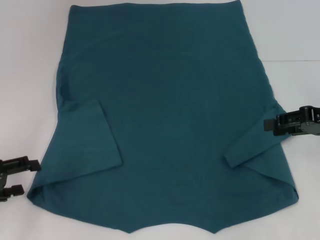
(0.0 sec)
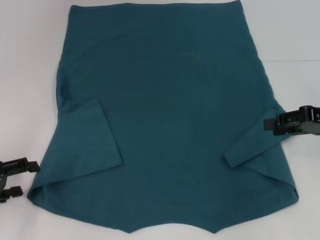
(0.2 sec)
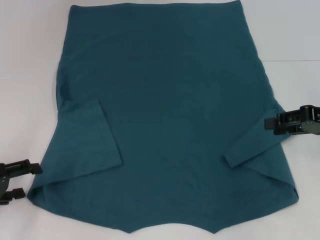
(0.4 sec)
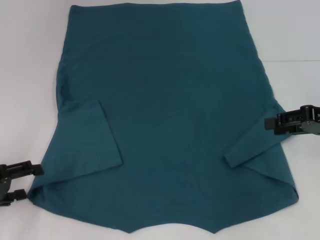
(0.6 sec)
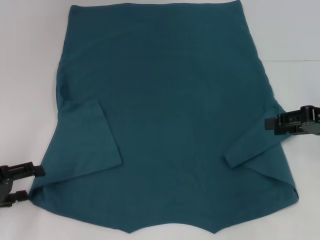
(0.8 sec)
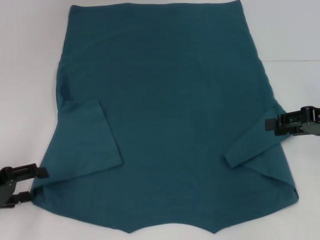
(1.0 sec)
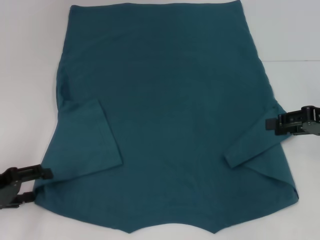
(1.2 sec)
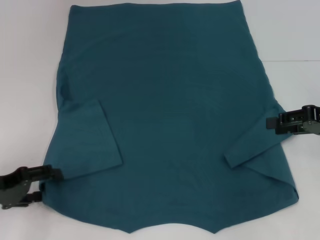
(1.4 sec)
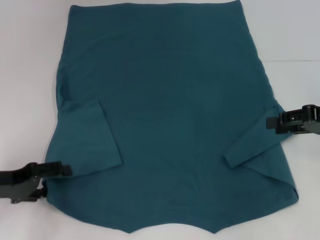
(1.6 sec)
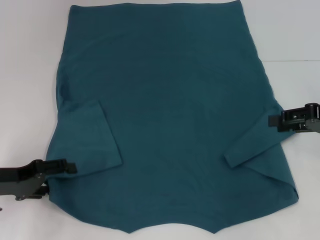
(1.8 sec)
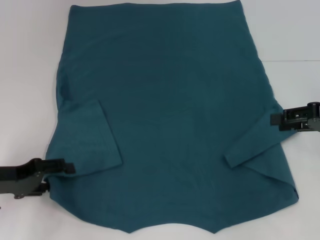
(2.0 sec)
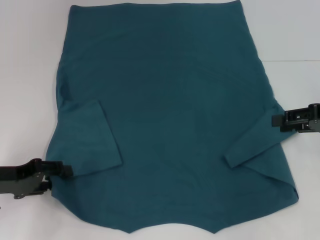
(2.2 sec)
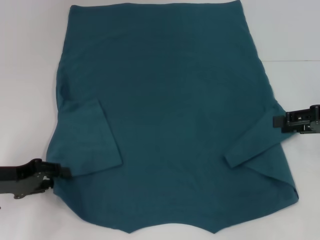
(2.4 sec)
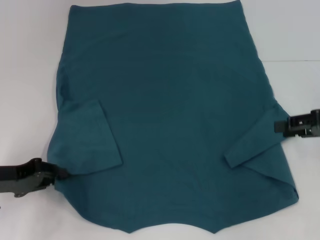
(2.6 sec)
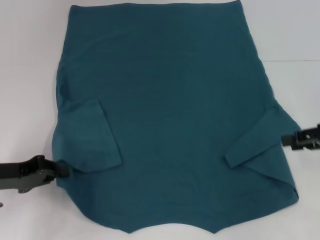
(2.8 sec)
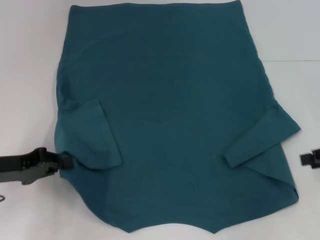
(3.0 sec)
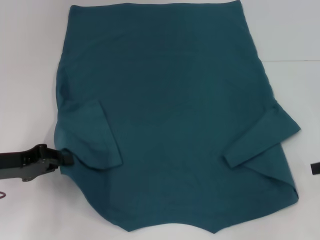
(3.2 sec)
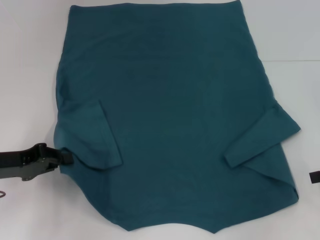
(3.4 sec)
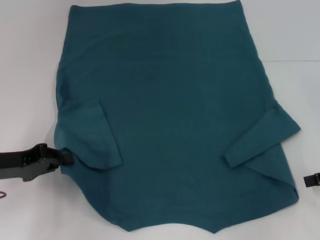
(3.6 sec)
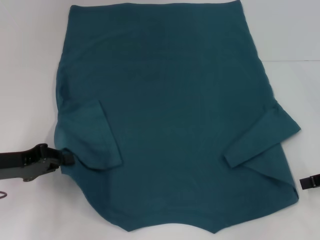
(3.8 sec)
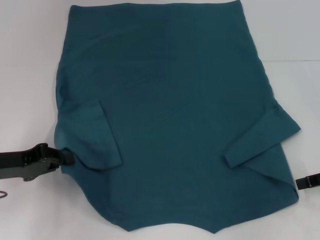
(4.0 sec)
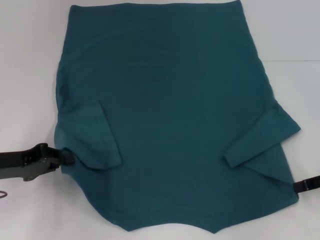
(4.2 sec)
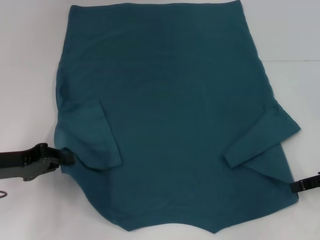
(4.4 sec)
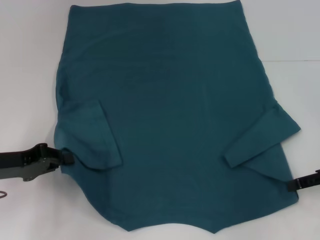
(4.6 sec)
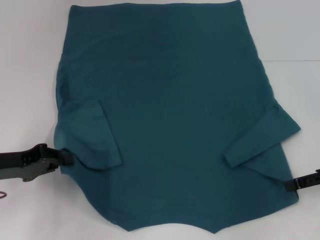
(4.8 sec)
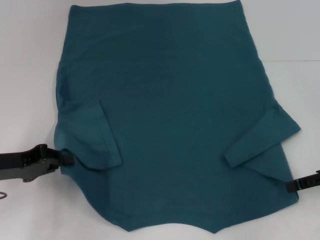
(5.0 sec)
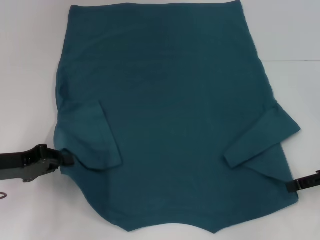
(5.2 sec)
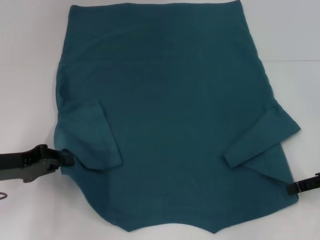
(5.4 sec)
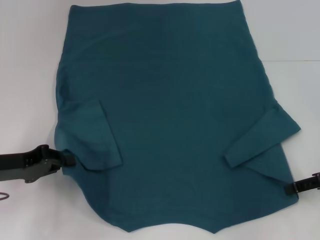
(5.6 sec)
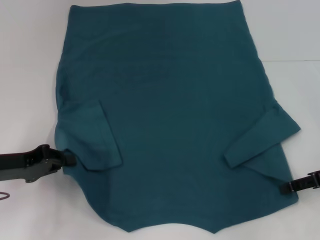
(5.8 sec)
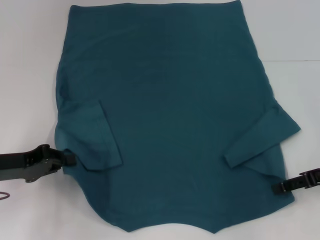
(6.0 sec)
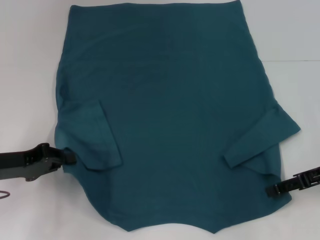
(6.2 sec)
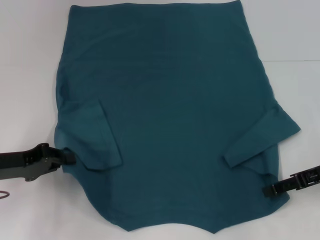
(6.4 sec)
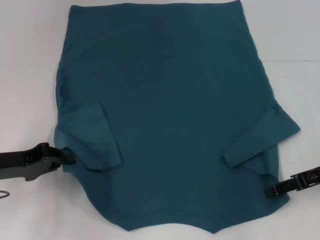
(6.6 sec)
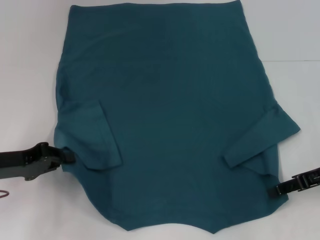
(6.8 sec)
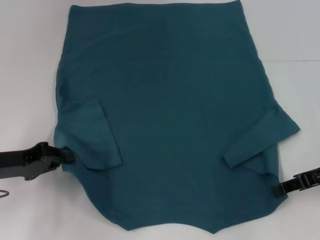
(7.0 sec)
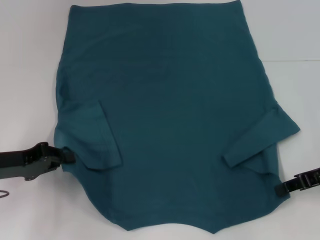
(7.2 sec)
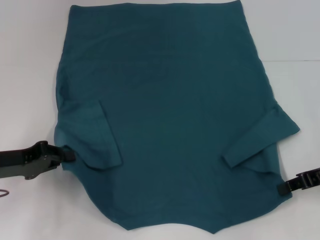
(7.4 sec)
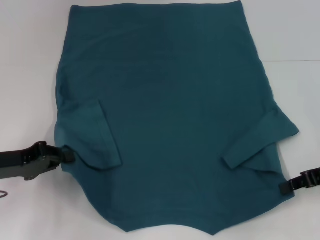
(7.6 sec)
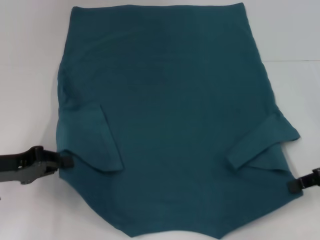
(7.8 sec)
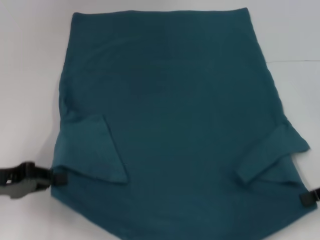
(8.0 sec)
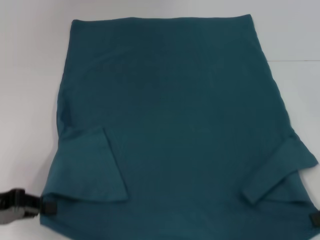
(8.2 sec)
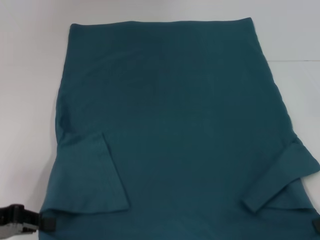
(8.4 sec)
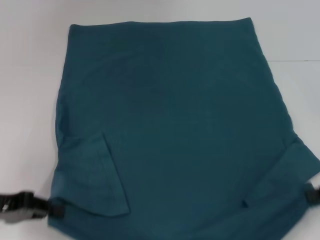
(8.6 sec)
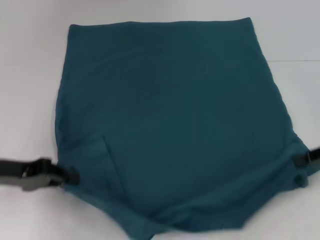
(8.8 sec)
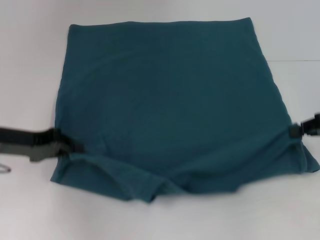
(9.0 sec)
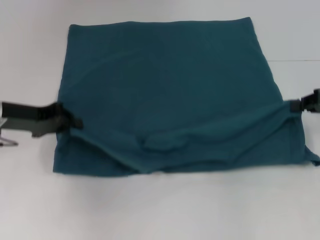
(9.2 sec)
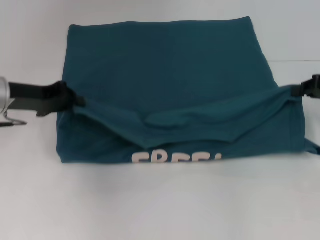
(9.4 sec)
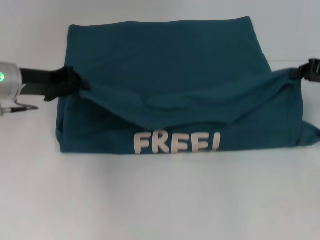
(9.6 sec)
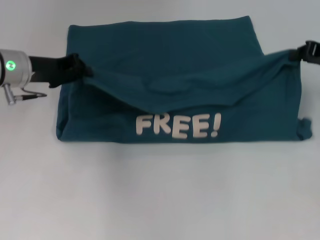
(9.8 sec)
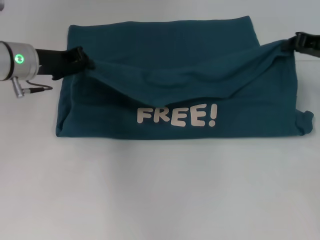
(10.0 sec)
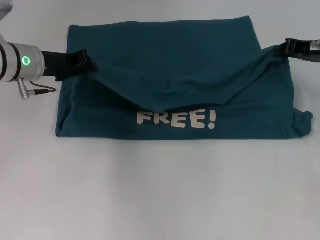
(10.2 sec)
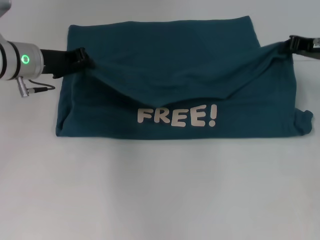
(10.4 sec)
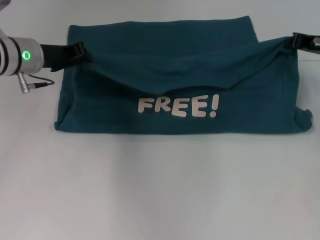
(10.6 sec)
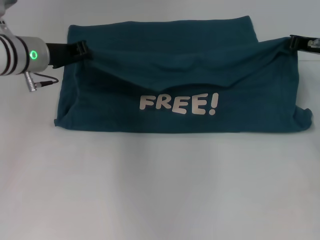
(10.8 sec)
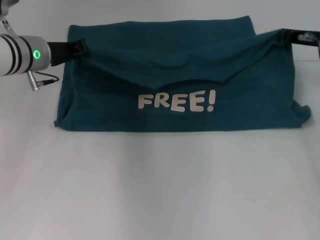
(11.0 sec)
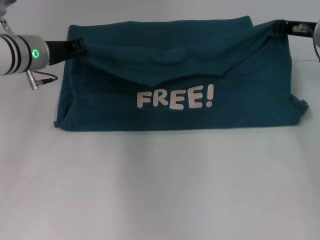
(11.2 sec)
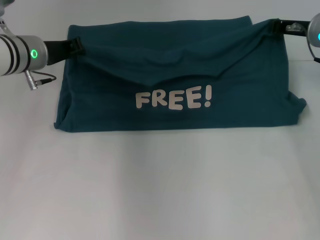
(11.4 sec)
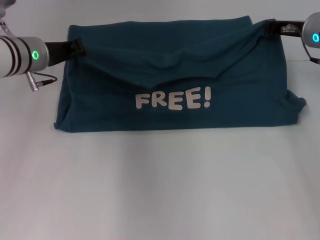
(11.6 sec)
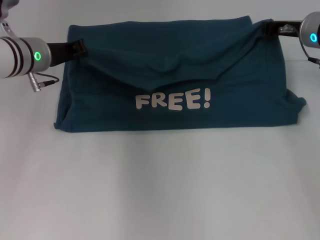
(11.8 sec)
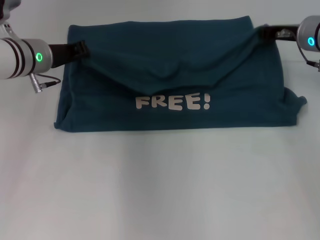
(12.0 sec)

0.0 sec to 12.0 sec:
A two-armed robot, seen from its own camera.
Step, 0.0 sec to 2.8 sec: Grab the bottom left corner with your left hand.
Step, 3.0 sec to 7.4 sec: Grab the bottom right corner with your right hand.
0.0 sec to 1.6 sec: The grippers make only small movements.
1.6 sec to 3.0 sec: The right gripper shifts by roughly 5 cm. Meanwhile the left gripper closes.
3.0 sec to 6.0 sec: The grippers make only small movements.
6.0 sec to 7.6 sec: The right gripper closes up.
7.6 sec to 9.0 sec: The left gripper ends up some 5 cm from where it was. Meanwhile the right gripper moves about 5 cm.
9.0 sec to 10.4 sec: The left gripper goes approximately 10 cm forward and to the right, while the right gripper is displaced forward by some 10 cm.
10.4 sec to 12.0 sec: The right gripper heads to the left, covering some 5 cm.

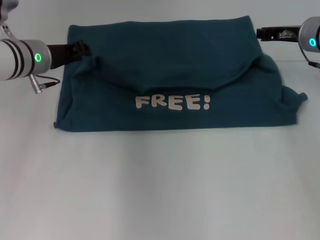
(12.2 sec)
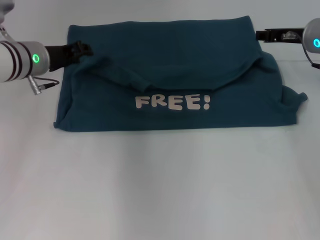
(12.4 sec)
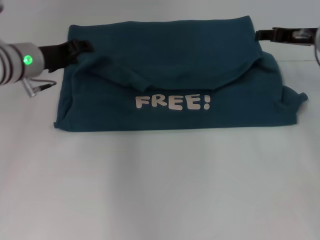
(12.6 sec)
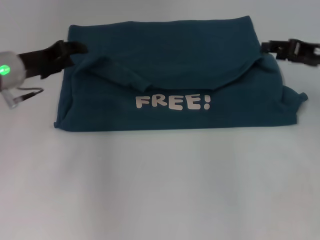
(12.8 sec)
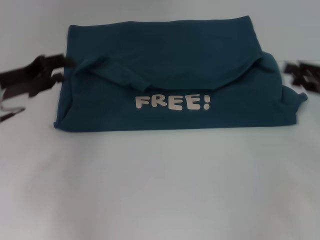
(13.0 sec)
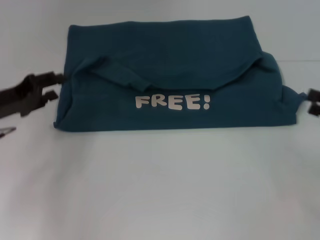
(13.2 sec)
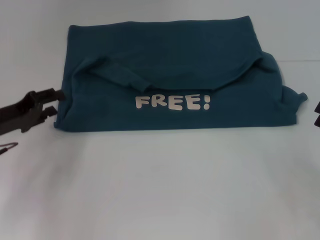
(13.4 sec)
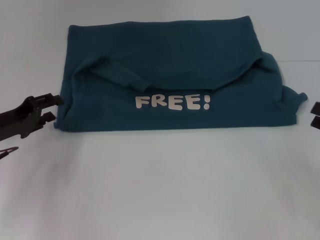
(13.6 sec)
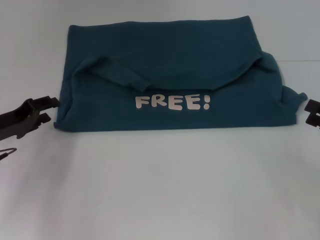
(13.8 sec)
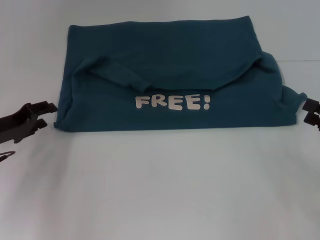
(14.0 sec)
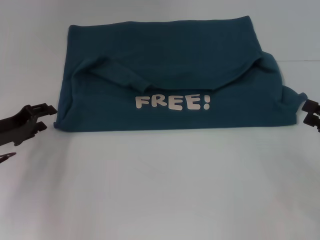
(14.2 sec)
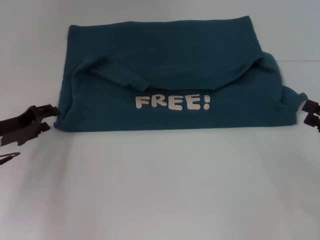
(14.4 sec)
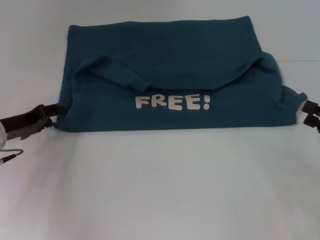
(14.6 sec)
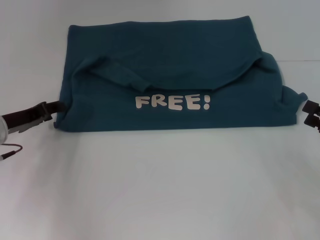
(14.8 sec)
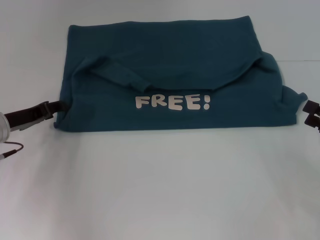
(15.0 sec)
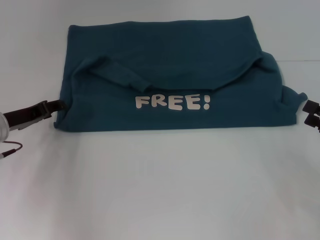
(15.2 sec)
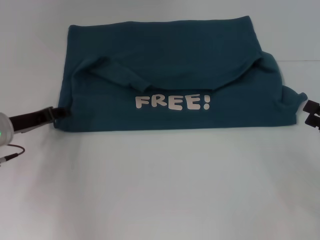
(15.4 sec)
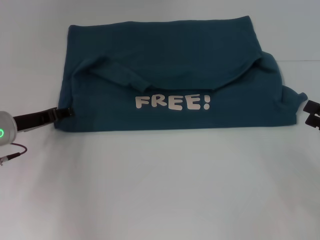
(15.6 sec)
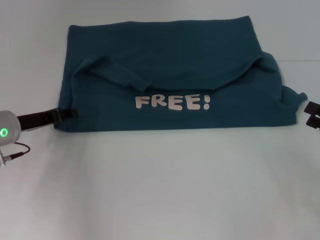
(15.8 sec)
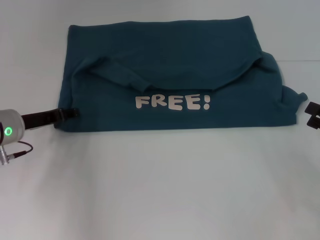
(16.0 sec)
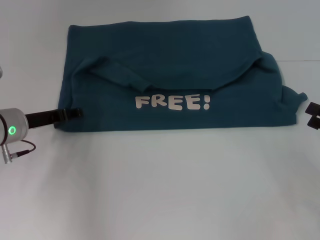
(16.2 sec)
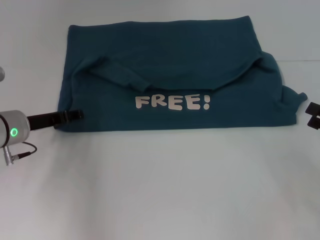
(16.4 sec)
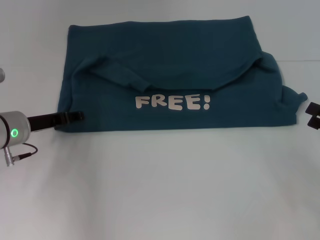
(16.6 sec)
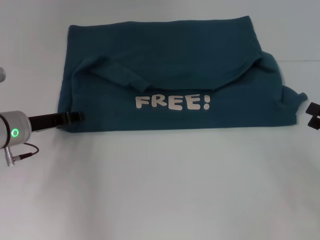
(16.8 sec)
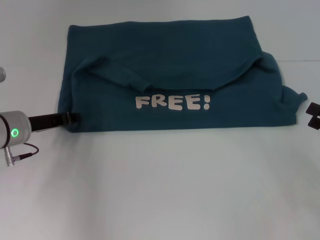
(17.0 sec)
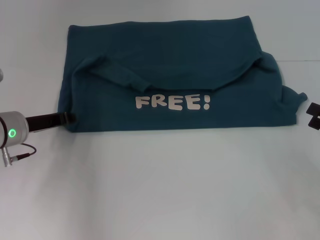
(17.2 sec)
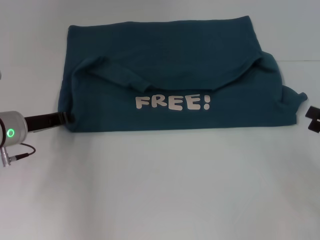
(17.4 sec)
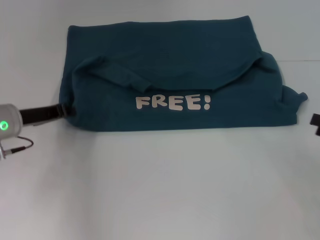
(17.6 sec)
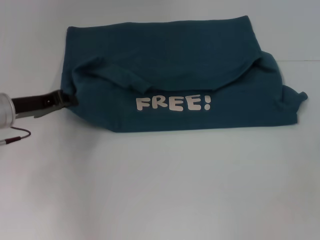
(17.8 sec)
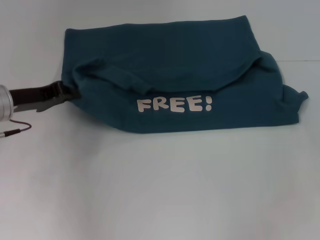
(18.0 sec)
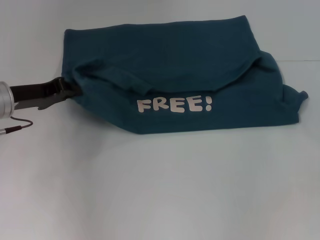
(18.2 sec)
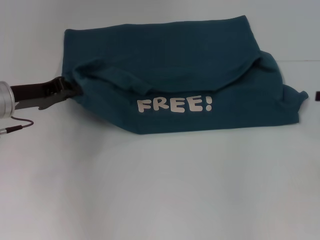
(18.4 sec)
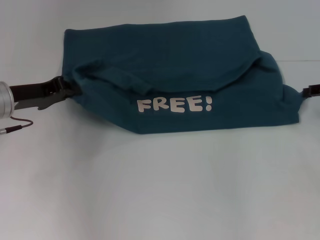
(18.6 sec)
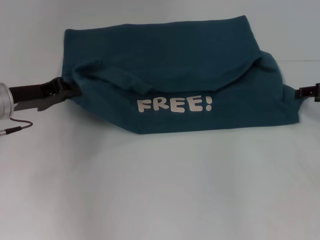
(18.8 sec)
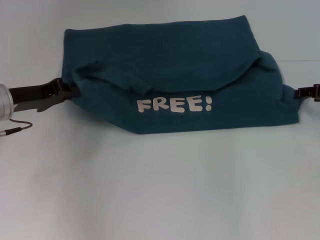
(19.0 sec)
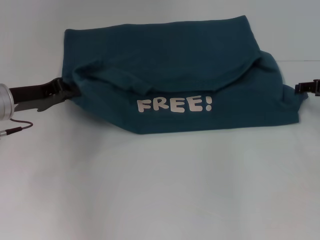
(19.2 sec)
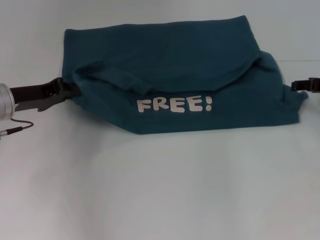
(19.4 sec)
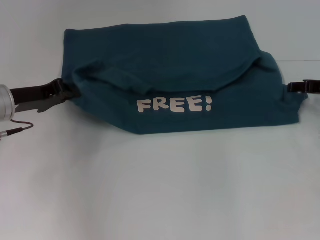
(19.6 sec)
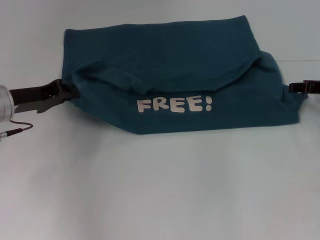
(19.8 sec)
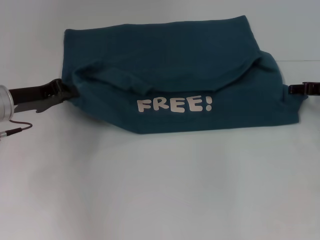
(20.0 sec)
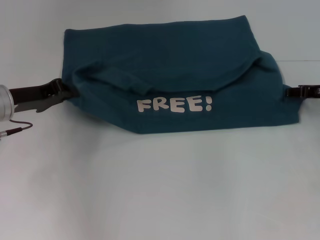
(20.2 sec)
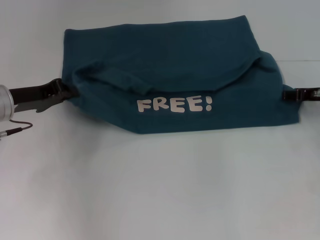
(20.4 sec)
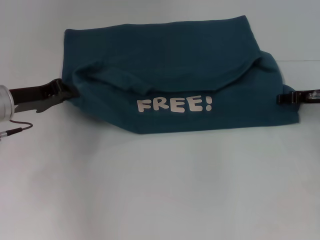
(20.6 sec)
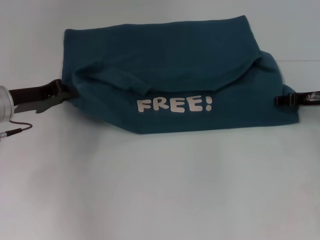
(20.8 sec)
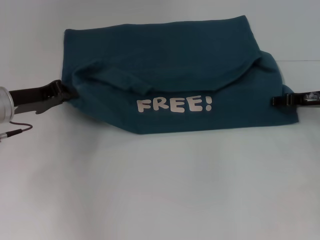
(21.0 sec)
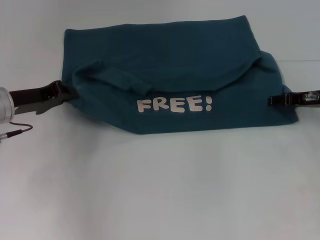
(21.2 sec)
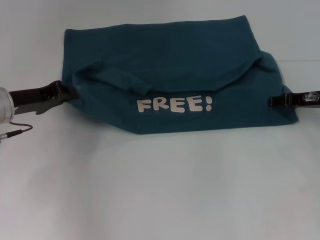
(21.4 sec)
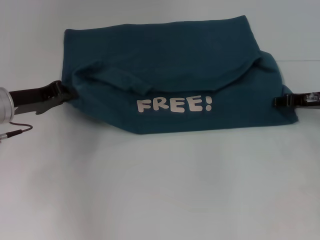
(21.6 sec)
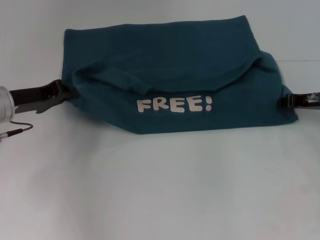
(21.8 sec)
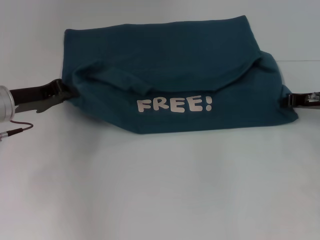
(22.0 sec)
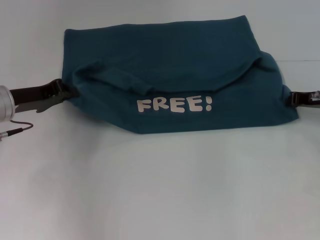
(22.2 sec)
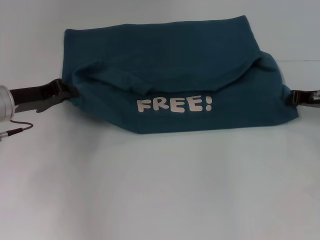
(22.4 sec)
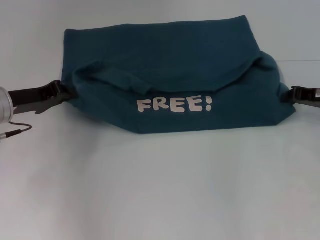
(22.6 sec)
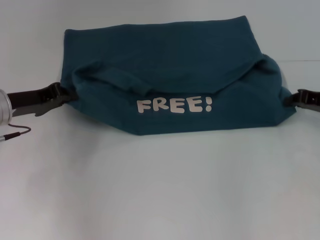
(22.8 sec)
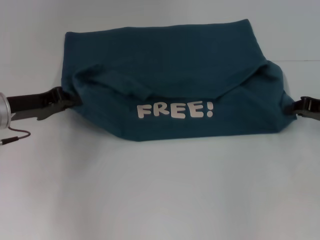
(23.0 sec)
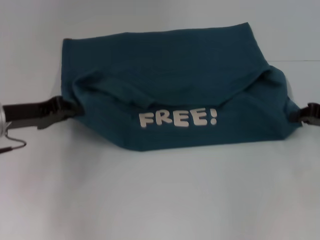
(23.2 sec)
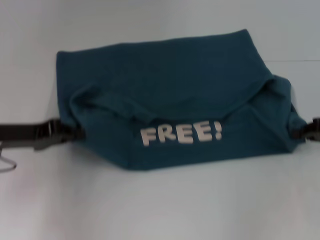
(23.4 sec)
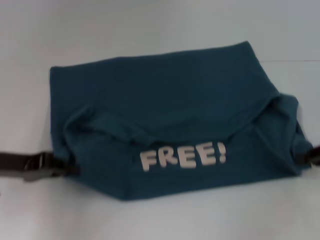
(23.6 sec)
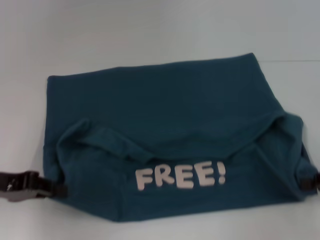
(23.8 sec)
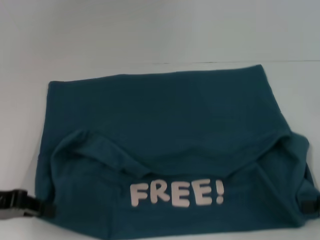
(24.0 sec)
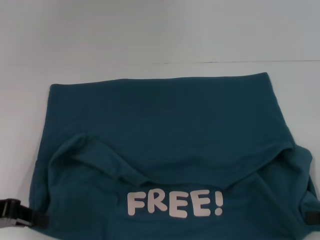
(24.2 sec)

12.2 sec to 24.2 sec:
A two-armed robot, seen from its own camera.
12.2 sec to 13.8 sec: The left gripper heads backward, to the left and downward, covering approximately 15 cm, and opens up, while the right gripper heads backward and to the right, covering some 25 cm, and opens.
15.2 sec to 16.6 sec: The grippers stay close to where they were, moving slightly.
16.6 sec to 18.2 sec: The right gripper goes some 10 cm forward and upward. Meanwhile the left gripper travels upward by roughly 5 cm, and closes.
18.2 sec to 19.8 sec: The right gripper is displaced to the left and forward by some 10 cm.
19.8 sec to 21.2 sec: The grippers move only a little.
21.2 sec to 22.6 sec: The right gripper closes up.
22.6 sec to 24.2 sec: The grippers both shift backward by about 15 cm.
